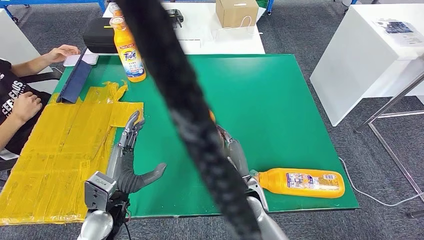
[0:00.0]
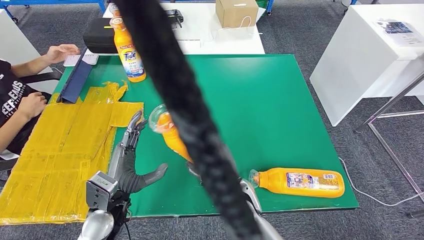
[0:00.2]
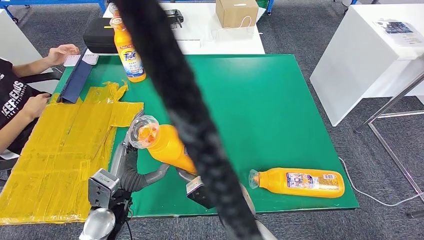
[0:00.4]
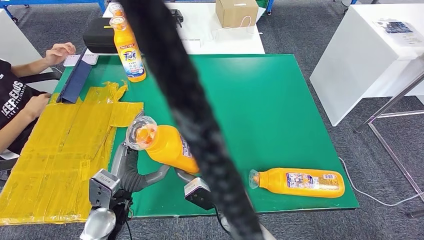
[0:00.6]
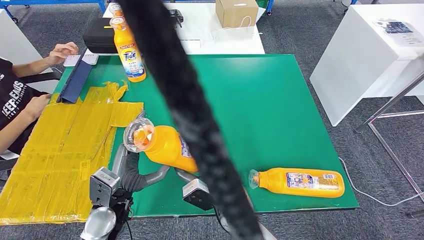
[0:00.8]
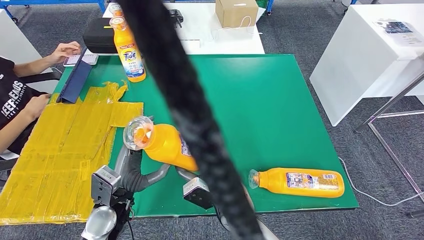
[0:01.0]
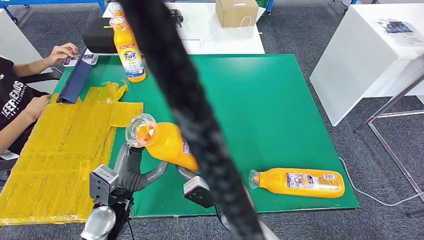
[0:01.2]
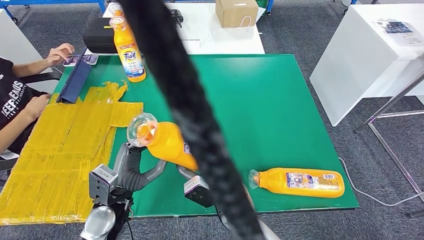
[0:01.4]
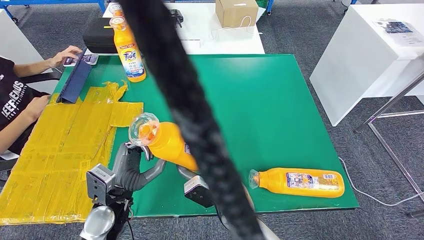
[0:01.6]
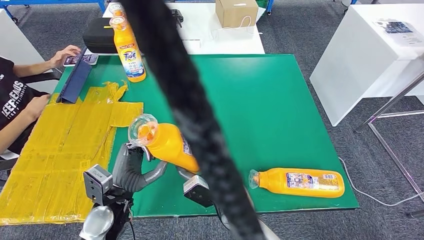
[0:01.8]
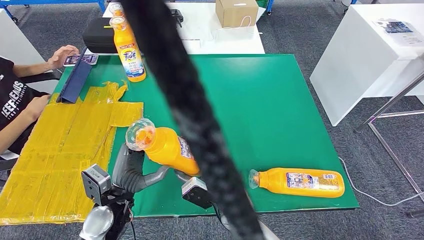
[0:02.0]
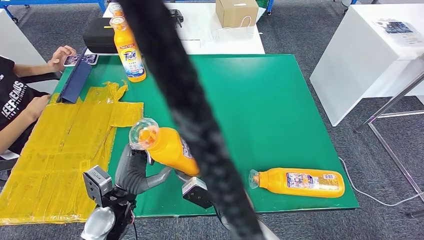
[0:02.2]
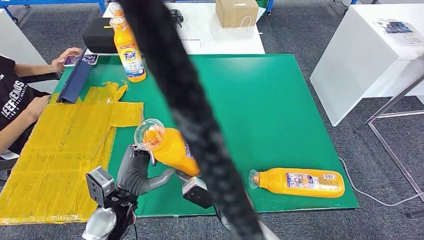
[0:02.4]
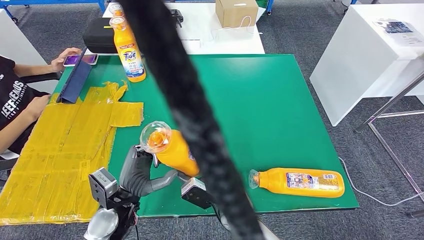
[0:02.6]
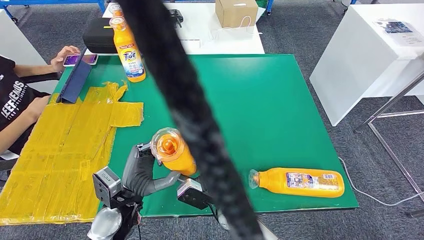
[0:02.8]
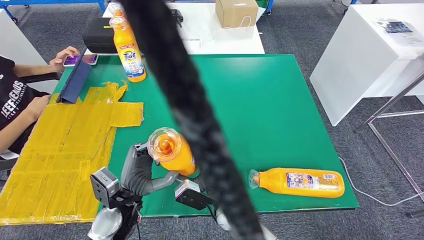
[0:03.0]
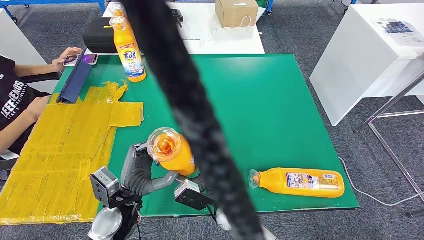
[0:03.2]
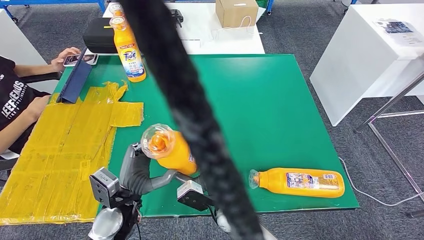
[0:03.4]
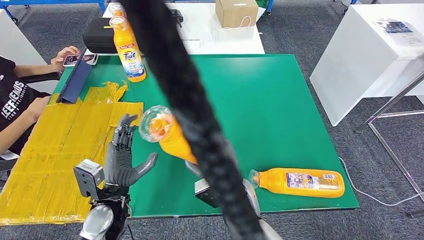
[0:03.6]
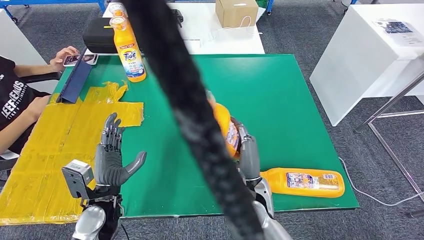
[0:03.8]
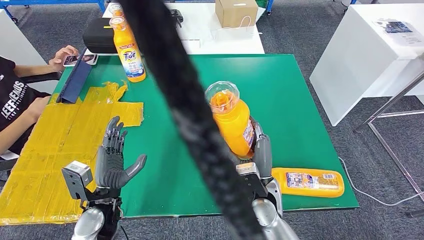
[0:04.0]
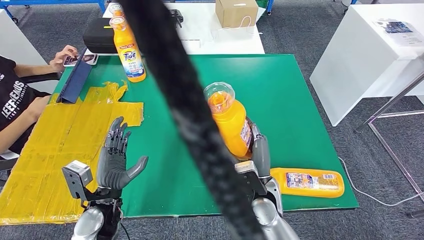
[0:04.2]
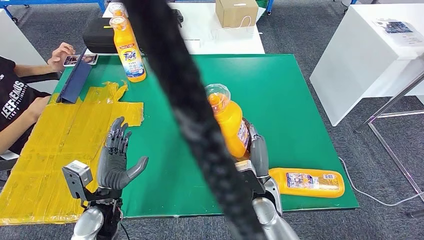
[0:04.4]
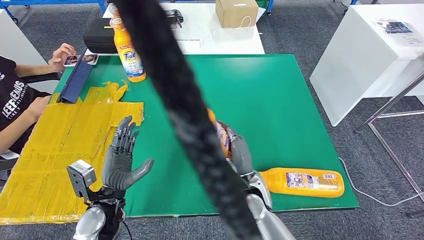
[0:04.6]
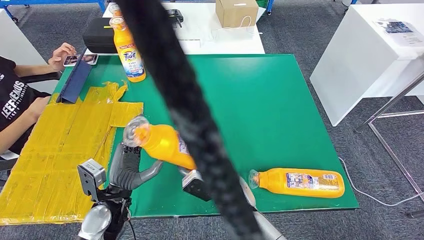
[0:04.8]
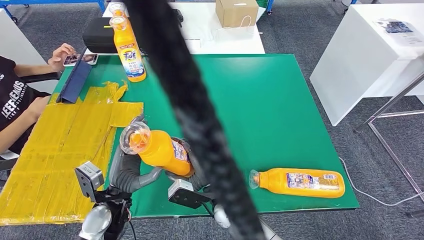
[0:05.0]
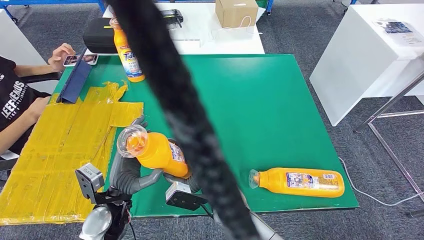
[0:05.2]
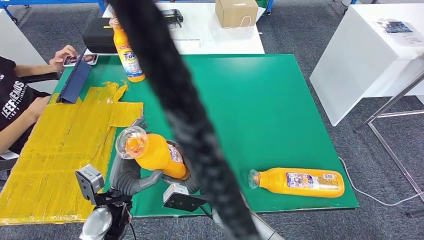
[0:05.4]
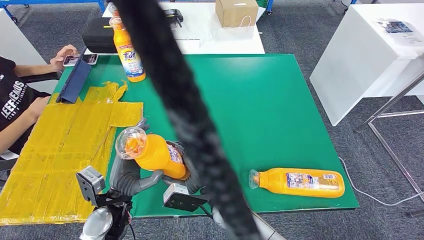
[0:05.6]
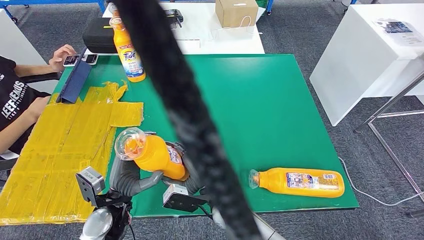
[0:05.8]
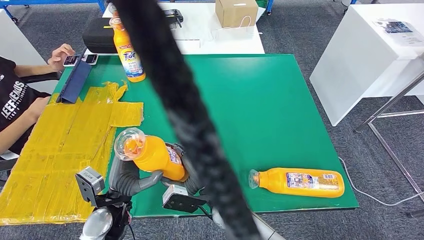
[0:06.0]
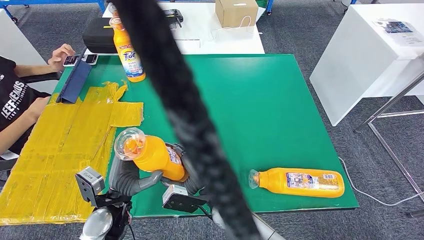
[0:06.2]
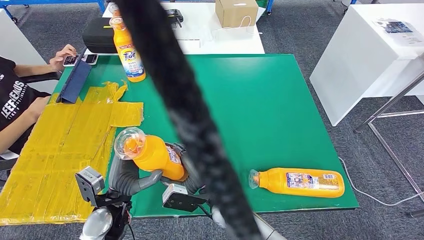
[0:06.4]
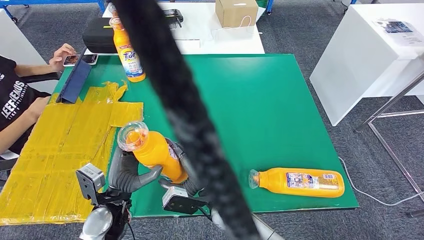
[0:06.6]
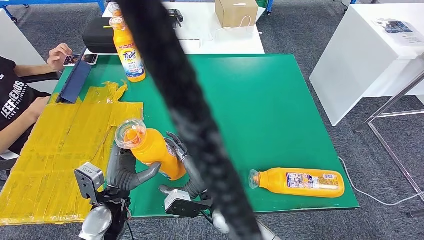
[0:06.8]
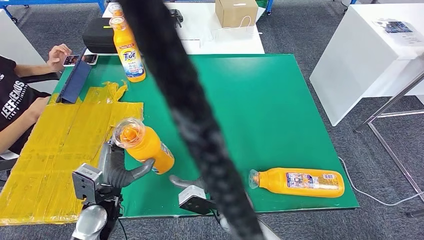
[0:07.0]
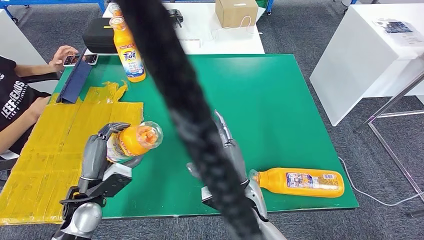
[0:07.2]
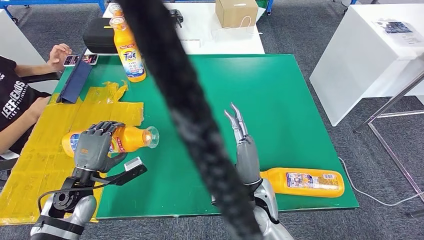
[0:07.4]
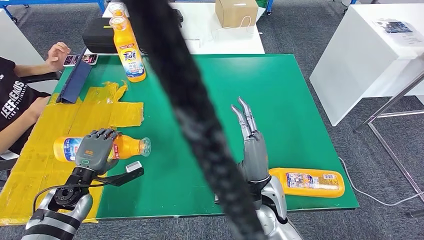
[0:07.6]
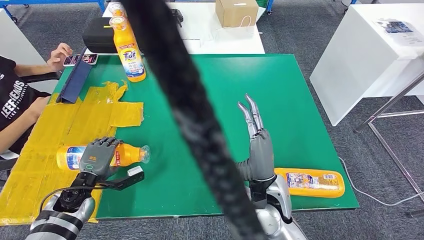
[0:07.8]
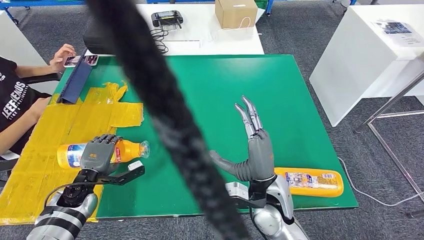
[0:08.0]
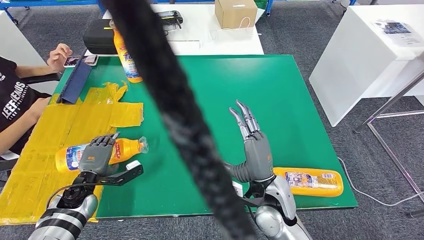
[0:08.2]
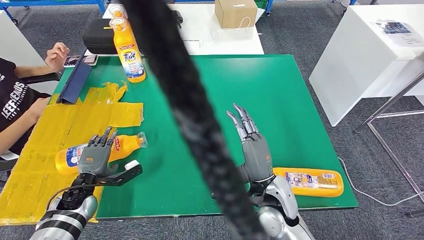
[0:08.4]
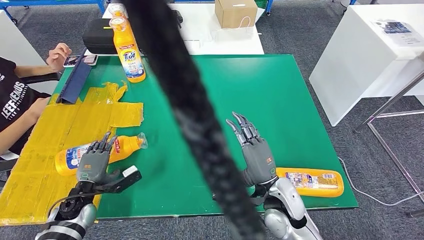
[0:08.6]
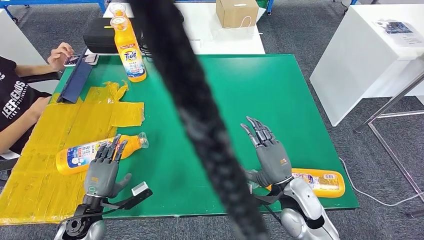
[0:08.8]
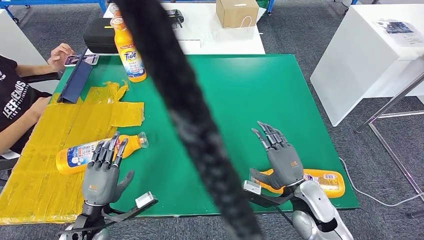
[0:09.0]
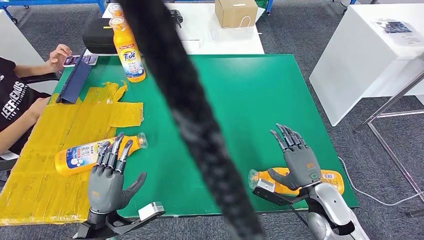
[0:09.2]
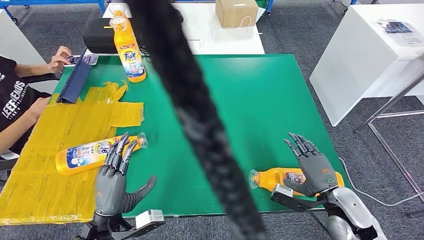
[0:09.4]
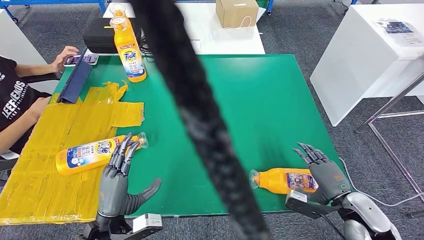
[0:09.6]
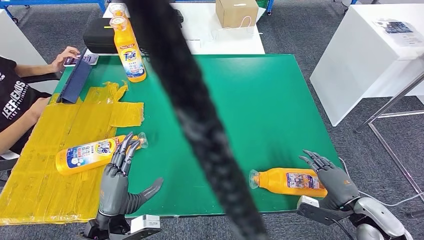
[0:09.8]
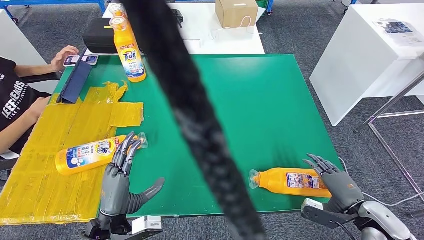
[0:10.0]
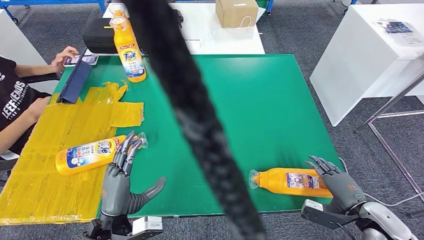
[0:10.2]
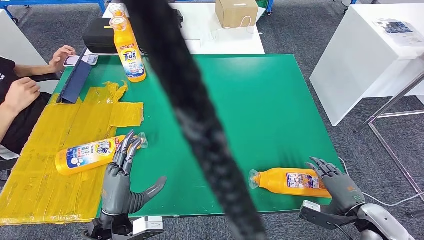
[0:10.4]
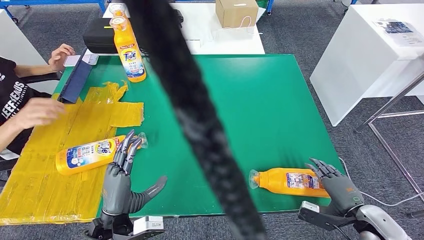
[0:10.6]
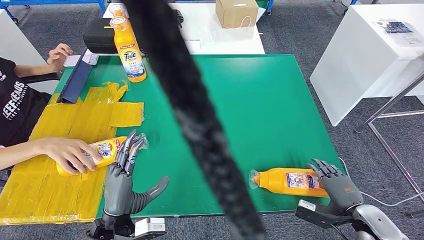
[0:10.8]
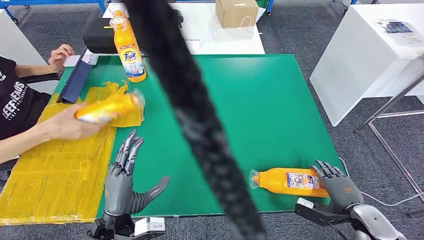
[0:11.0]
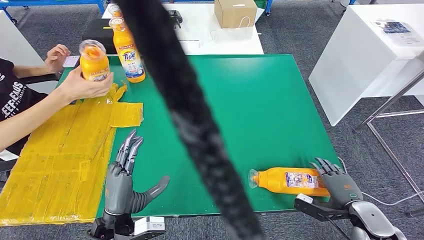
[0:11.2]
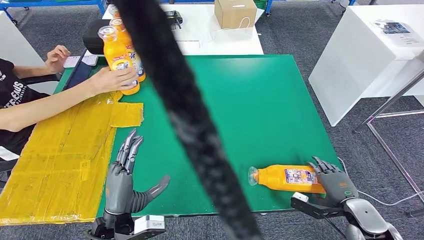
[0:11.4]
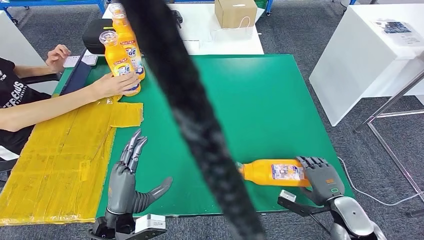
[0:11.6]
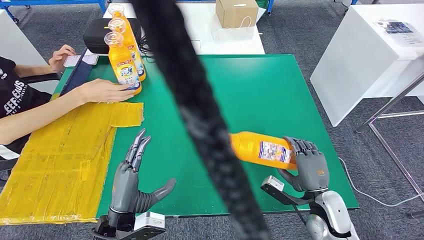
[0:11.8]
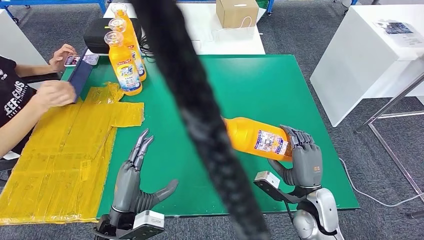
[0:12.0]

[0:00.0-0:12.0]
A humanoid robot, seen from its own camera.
Step, 0:01.0 to 0:09.8: Flip the fast-moving consumer goods bottle to the front side.
0:00.0 to 0:01.6: The hands make only small movements.
0:01.6 to 0:03.0: The hands stay close to where they were, moving slightly.
0:03.0 to 0:04.4: The right hand travels to the right by about 10 cm. Meanwhile the left hand shifts approximately 5 cm to the left.
0:04.4 to 0:06.0: The right hand moves to the left, roughly 10 cm.
0:06.0 to 0:07.6: The right hand heads to the right and upward, covering about 10 cm. Meanwhile the left hand travels to the left and forward by roughly 15 cm.

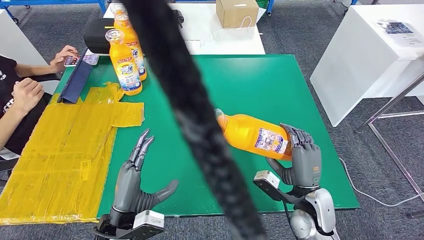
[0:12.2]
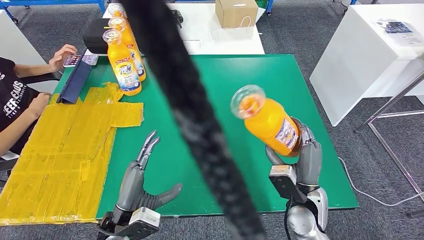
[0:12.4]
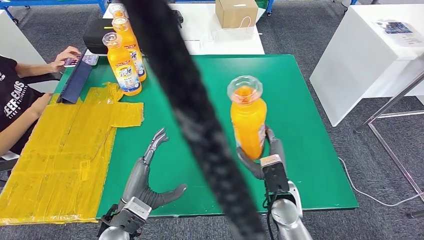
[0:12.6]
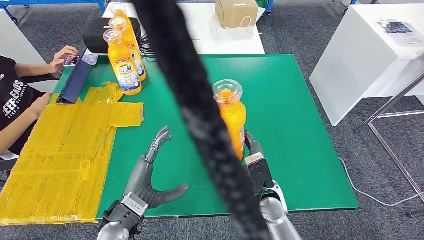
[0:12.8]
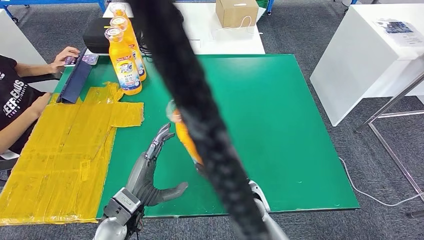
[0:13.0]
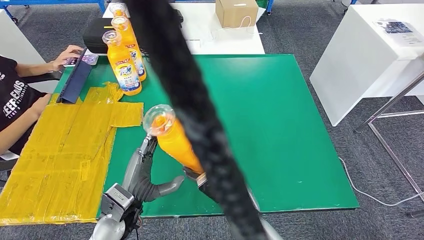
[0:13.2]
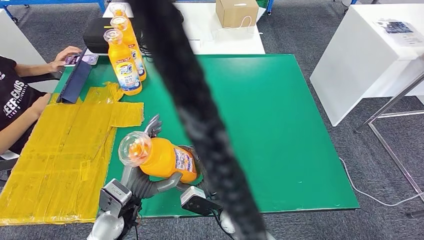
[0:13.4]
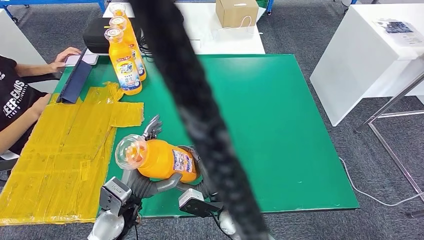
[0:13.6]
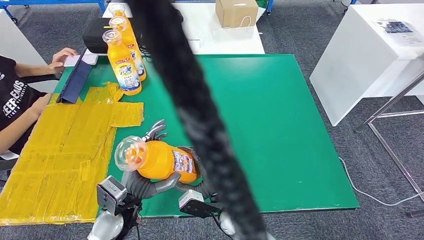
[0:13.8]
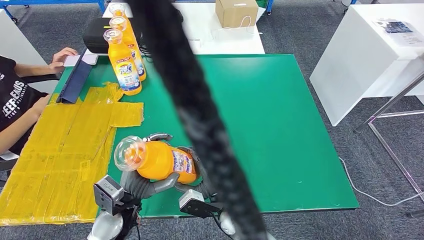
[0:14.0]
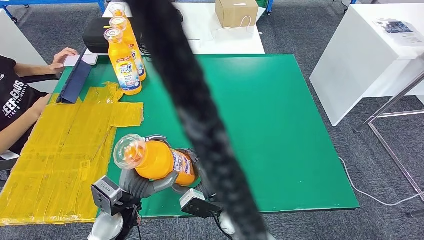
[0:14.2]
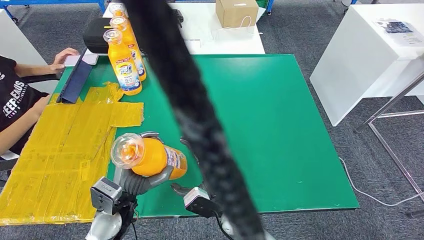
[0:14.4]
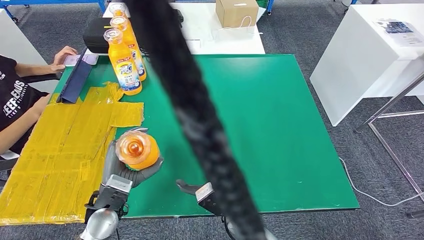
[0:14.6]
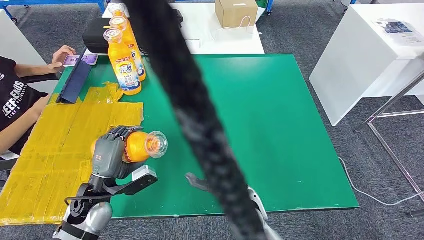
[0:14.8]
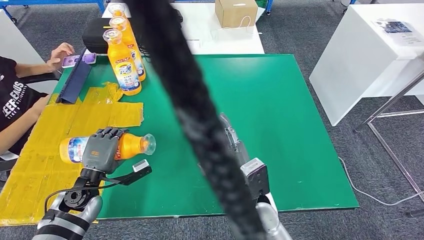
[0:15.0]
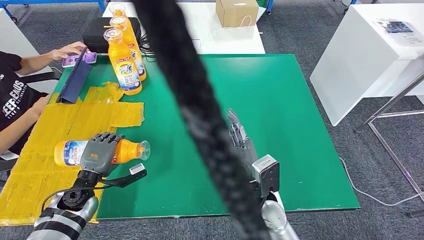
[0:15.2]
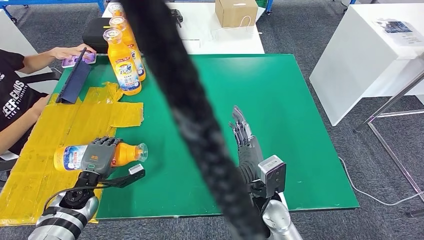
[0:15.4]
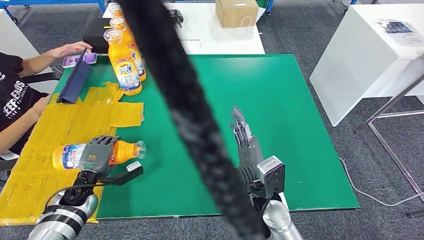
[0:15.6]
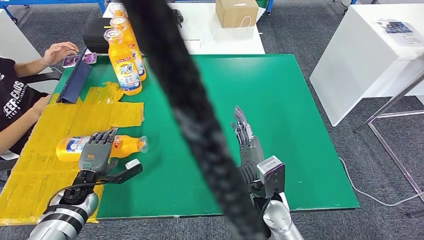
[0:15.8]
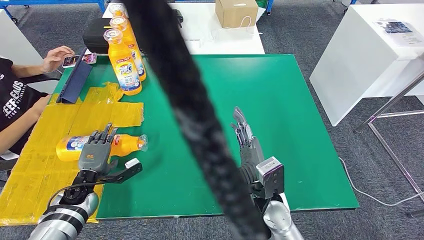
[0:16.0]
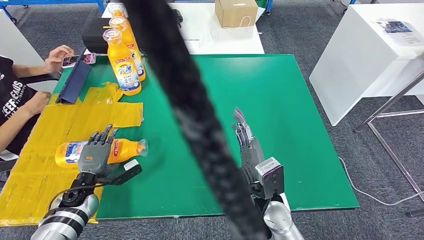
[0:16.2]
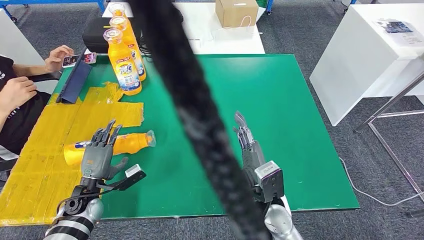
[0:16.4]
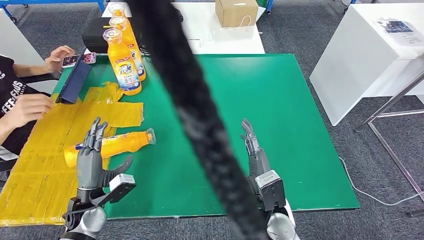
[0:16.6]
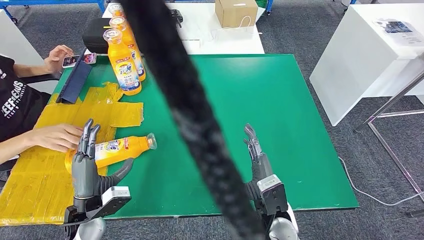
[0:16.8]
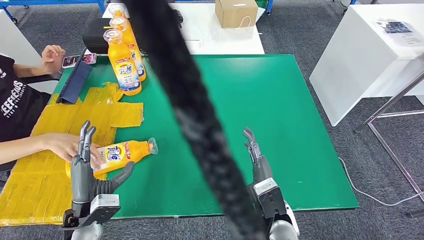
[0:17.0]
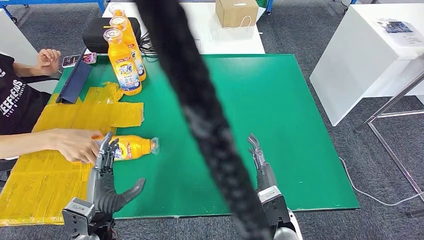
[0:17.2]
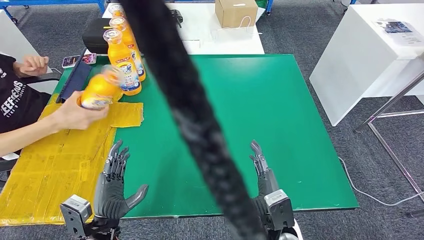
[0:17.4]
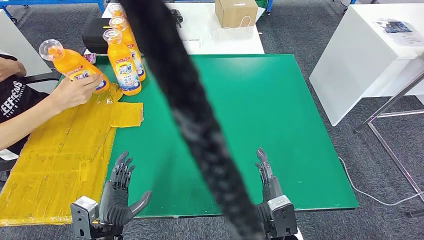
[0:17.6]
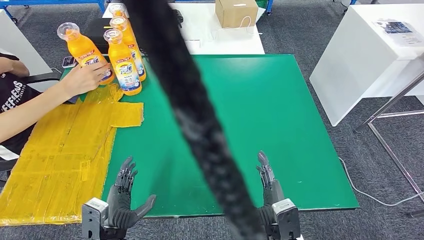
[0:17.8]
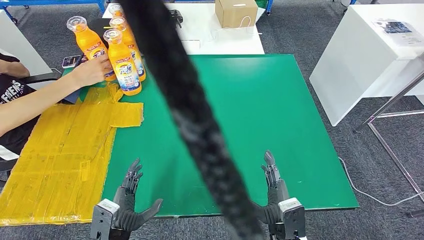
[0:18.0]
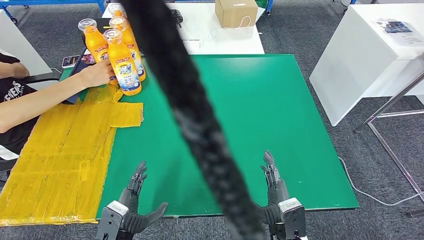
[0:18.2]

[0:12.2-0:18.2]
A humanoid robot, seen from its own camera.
Step, 0:13.6 to 0:18.2: Flip the fast-moving consumer goods bottle to the front side.
0:13.8 to 0:15.2: The right hand travels upward and to the right by roughly 10 cm. Meanwhile the left hand goes roughly 15 cm to the left, forward and downward.
0:15.2 to 0:16.6: The left hand changes place by some 5 cm.
0:16.6 to 0:18.2: The right hand moves backward and downward, approximately 10 cm, while the left hand moves backward and to the right, roughly 15 cm.
